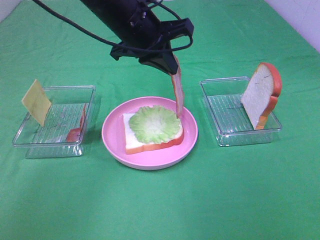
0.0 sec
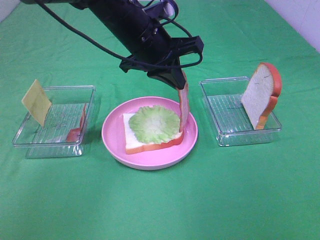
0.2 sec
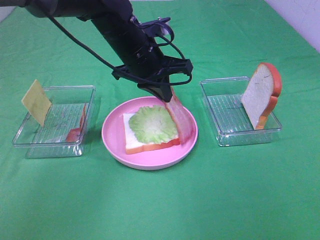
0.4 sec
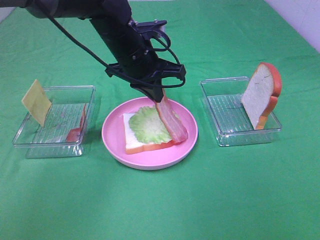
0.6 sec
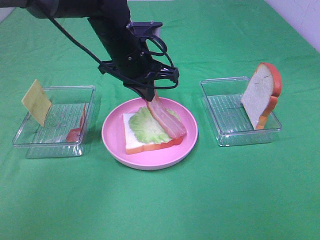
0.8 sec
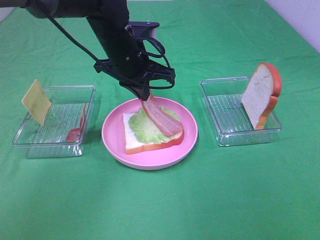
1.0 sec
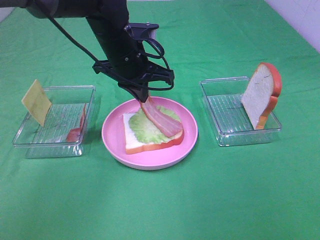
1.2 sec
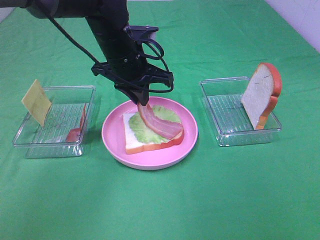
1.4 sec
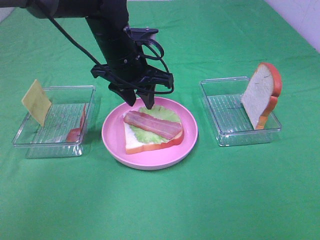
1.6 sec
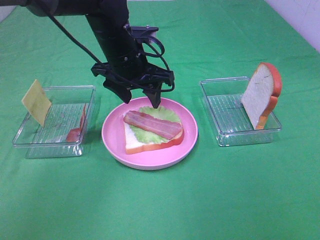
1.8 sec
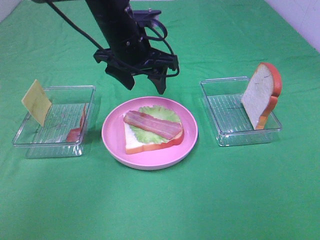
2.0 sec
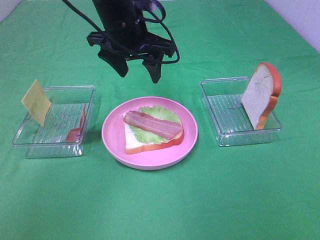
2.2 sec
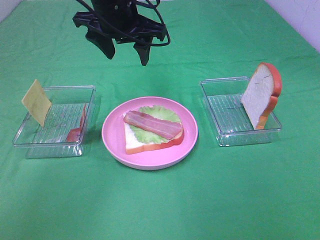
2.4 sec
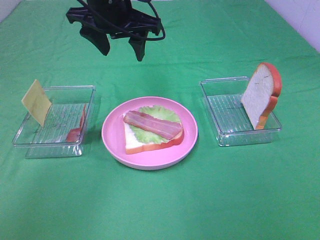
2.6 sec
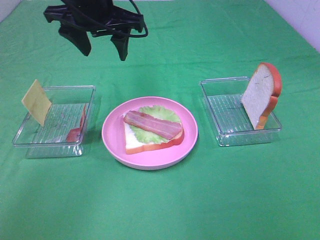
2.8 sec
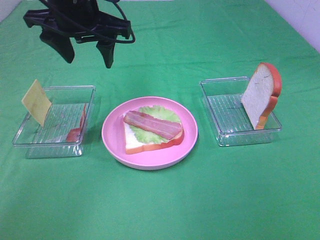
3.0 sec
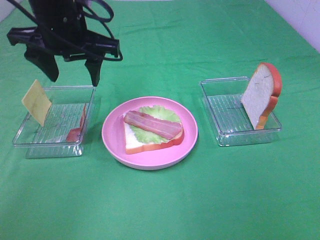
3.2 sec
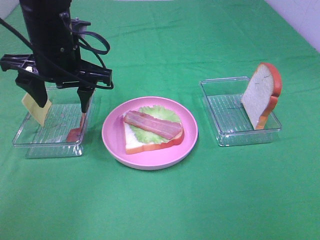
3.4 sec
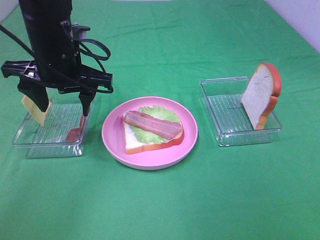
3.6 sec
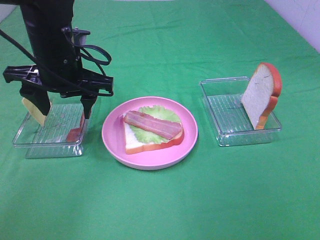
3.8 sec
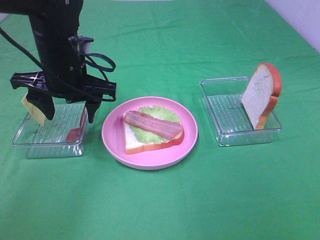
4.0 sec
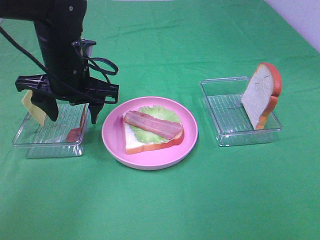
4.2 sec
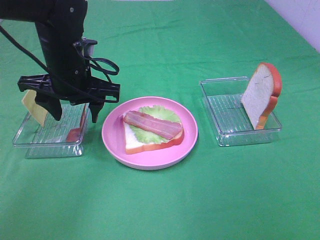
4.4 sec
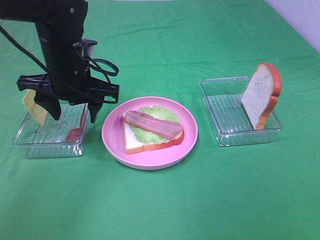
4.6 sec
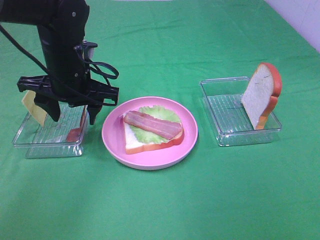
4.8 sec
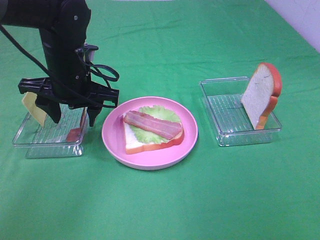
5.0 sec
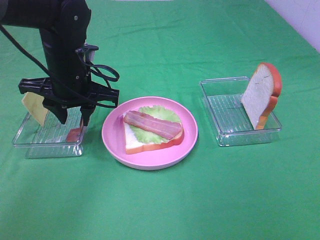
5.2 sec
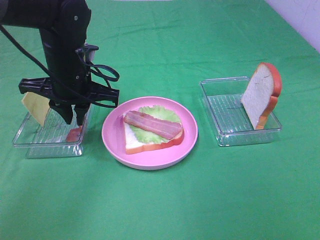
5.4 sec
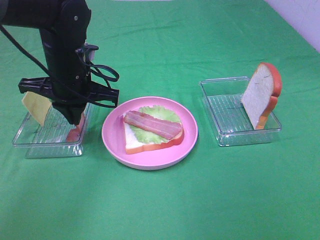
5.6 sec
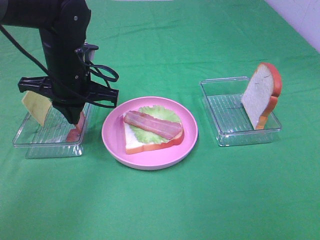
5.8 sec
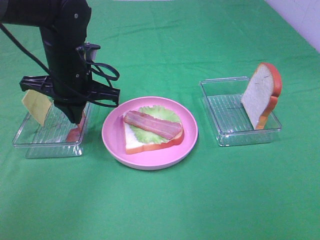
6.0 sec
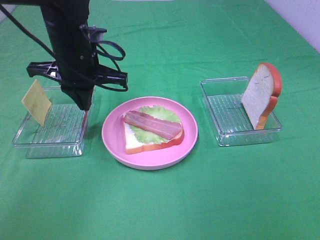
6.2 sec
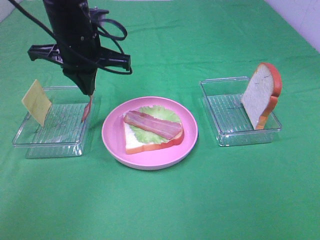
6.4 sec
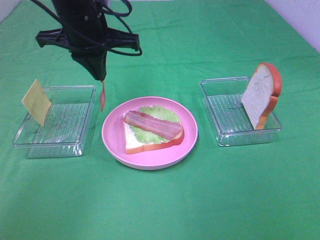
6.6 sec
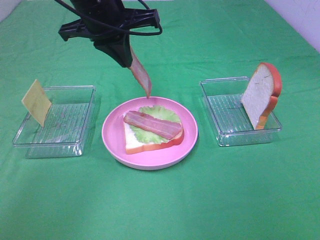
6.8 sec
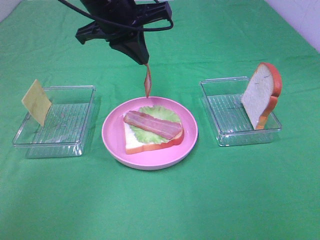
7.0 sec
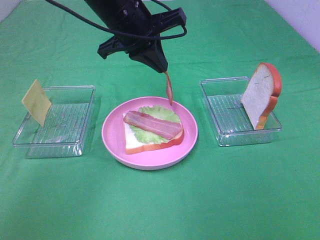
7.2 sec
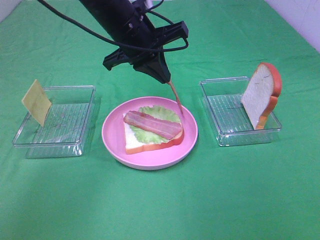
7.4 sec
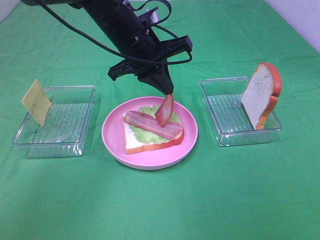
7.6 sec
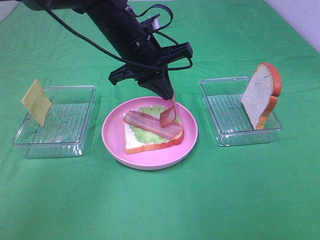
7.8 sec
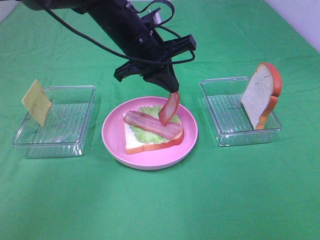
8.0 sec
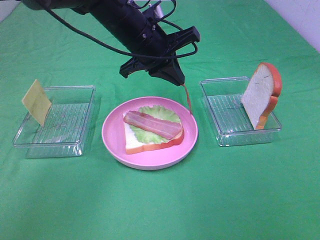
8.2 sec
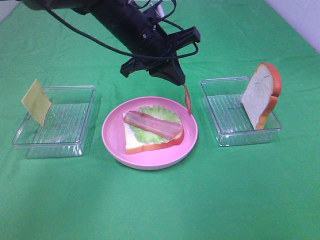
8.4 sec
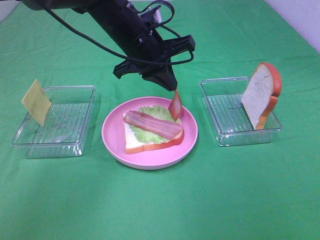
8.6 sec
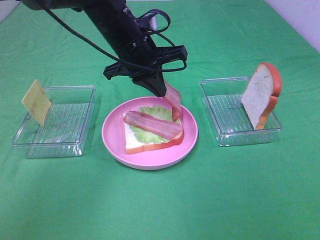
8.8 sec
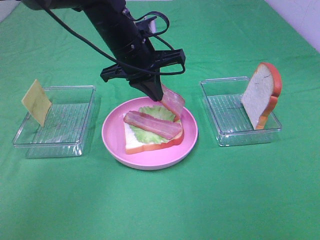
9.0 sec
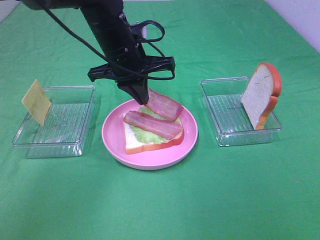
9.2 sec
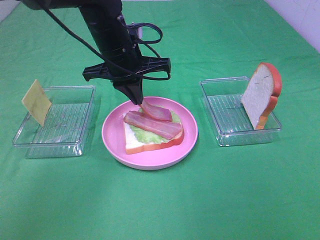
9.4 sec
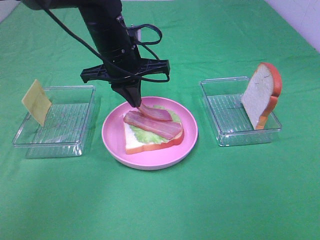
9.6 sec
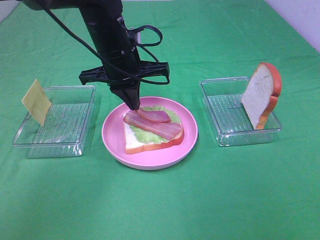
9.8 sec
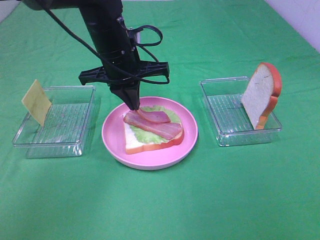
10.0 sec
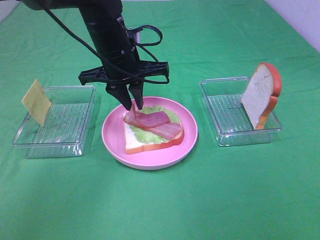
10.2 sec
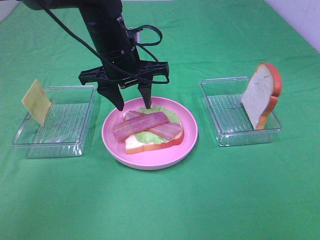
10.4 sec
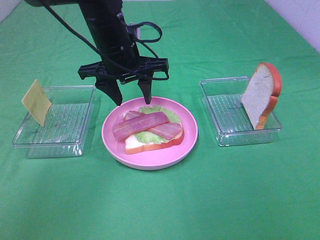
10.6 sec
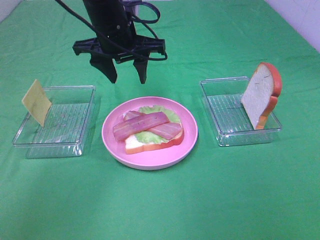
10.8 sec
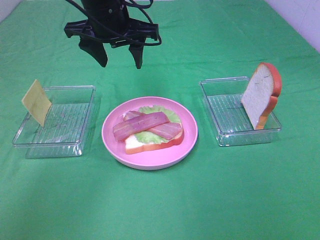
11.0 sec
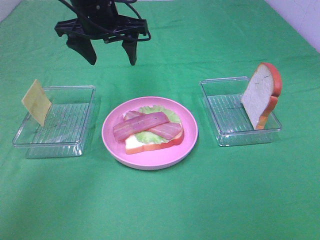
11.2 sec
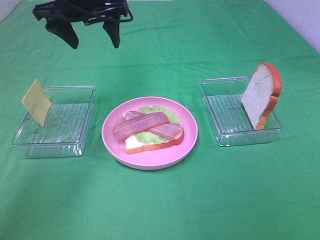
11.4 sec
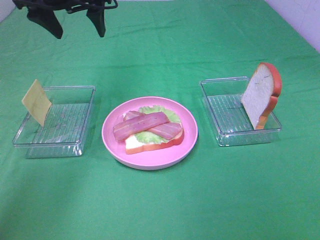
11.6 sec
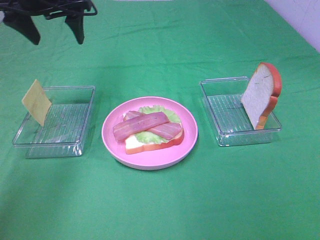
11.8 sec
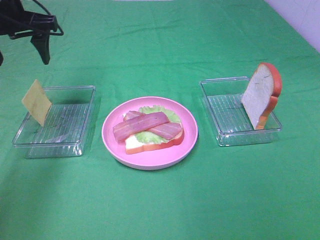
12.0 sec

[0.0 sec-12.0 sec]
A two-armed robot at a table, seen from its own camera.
Task of the whole recording: Make sandwiches.
Step, 2.0 sec to 5.8 sec: Left hand:grab the bacon.
Step, 6.0 sec to 10.4 sec: Left hand:place bacon on bacon.
0.0 sec to 1.6 sec: The left gripper heads downward, covering approximately 5 cm, and opens its fingers.
1.6 sec to 3.0 sec: The left gripper travels upward and to the left by roughly 10 cm.
3.0 sec to 4.4 sec: The left gripper is displaced downward by about 10 cm.
4.4 sec to 6.0 sec: The left gripper closes its fingers.
6.0 sec to 7.6 sec: The left gripper heads to the right, covering about 10 cm, and travels upward and back again, roughly 10 cm each way.
7.6 sec to 9.0 sec: The grippers stay close to where they were, moving slightly.
9.0 sec to 10.4 sec: The left gripper opens its fingers.
10.4 sec to 12.0 sec: The left gripper goes some 20 cm to the left and upward.

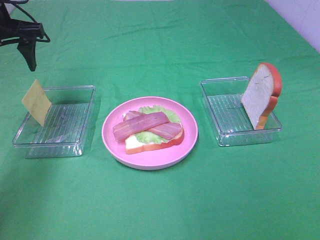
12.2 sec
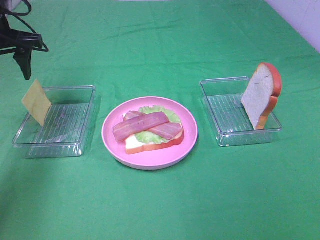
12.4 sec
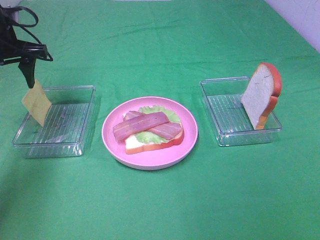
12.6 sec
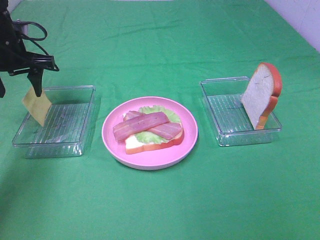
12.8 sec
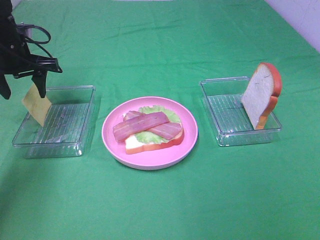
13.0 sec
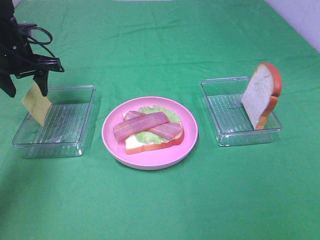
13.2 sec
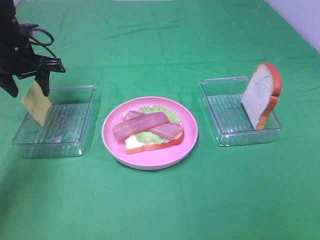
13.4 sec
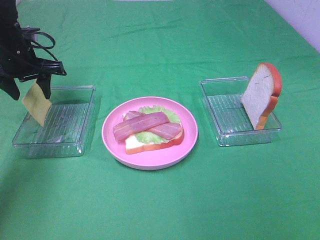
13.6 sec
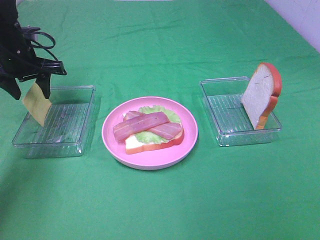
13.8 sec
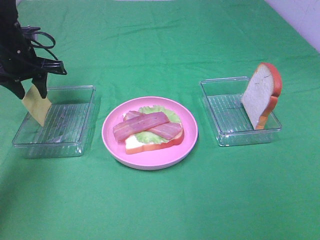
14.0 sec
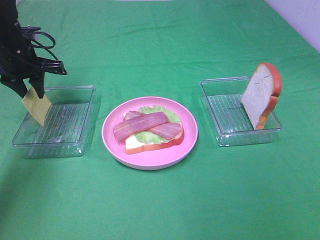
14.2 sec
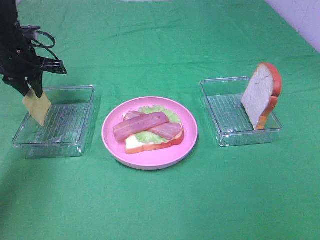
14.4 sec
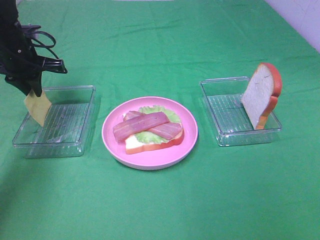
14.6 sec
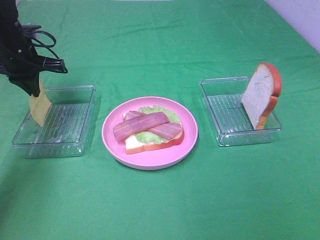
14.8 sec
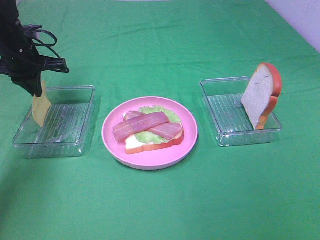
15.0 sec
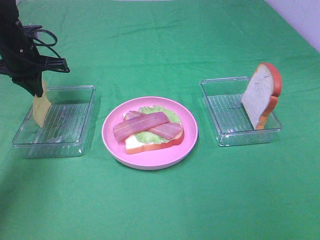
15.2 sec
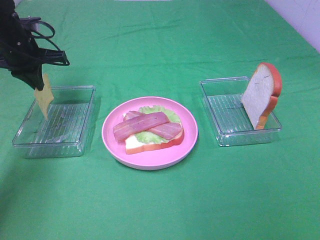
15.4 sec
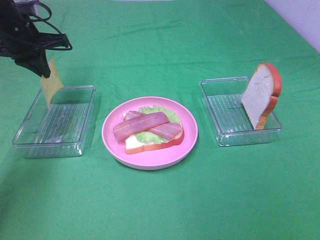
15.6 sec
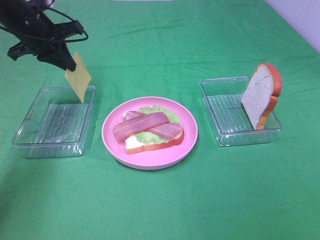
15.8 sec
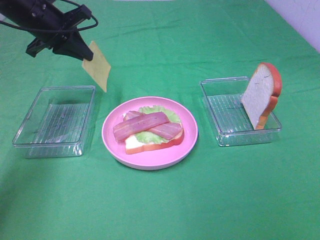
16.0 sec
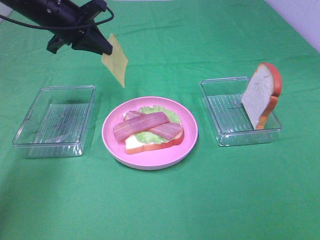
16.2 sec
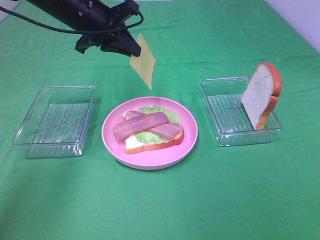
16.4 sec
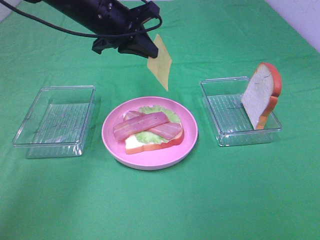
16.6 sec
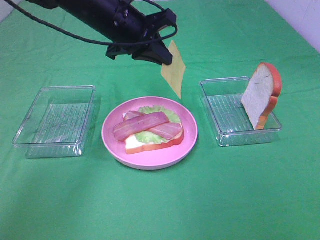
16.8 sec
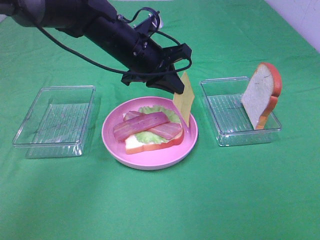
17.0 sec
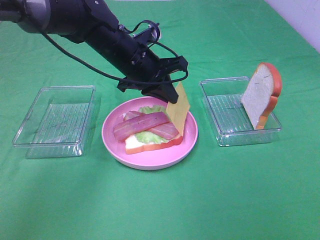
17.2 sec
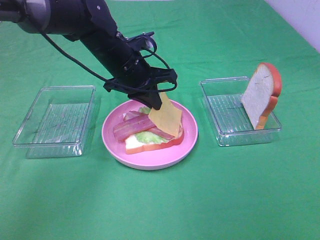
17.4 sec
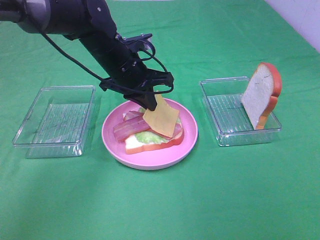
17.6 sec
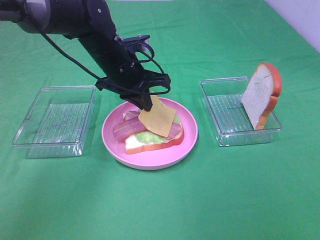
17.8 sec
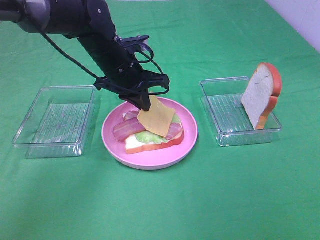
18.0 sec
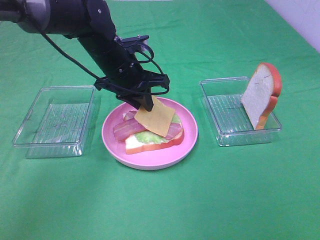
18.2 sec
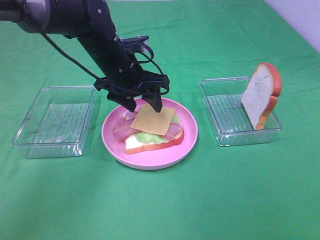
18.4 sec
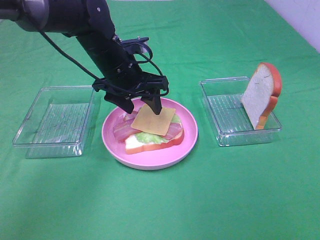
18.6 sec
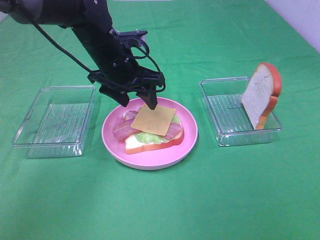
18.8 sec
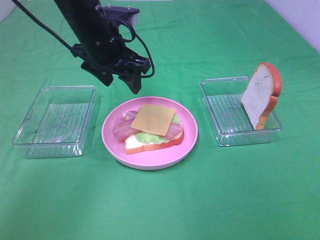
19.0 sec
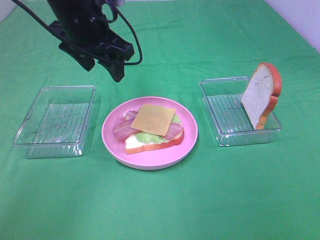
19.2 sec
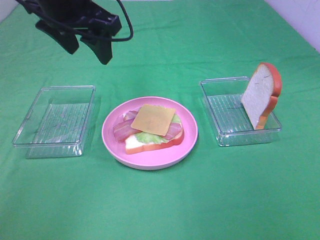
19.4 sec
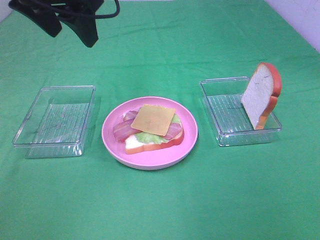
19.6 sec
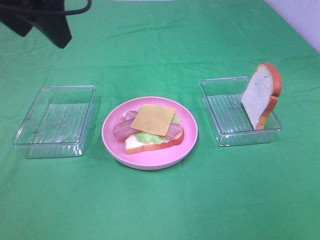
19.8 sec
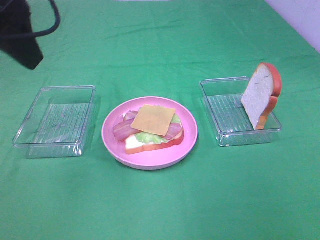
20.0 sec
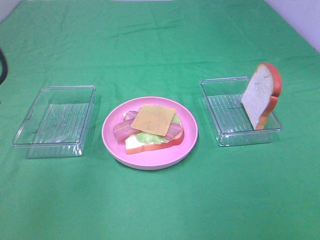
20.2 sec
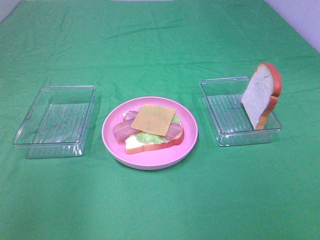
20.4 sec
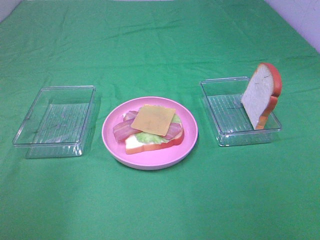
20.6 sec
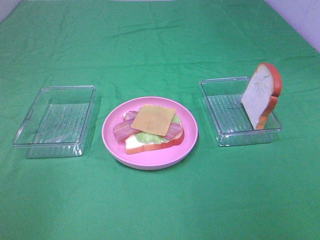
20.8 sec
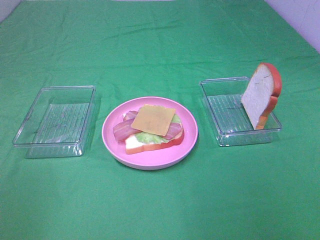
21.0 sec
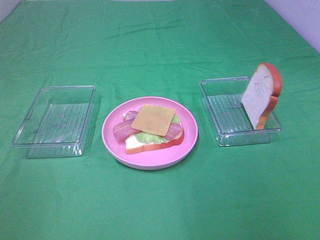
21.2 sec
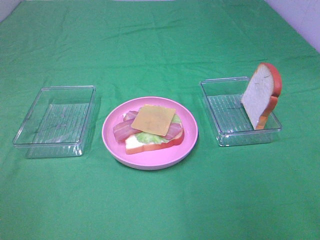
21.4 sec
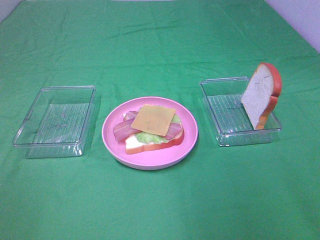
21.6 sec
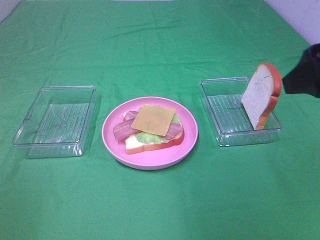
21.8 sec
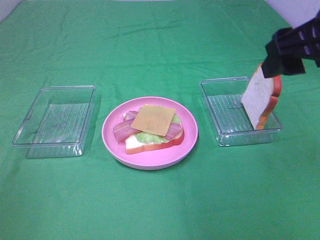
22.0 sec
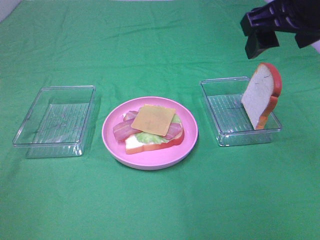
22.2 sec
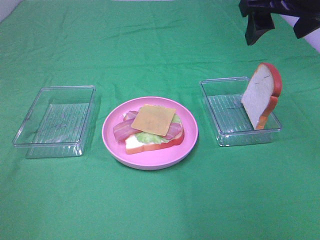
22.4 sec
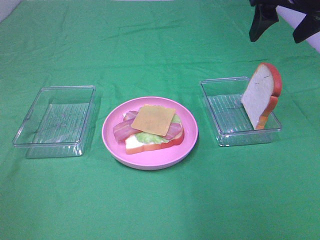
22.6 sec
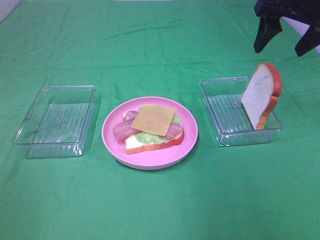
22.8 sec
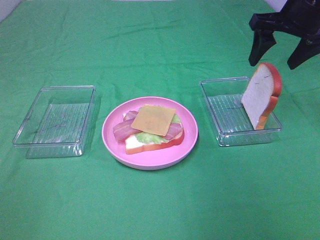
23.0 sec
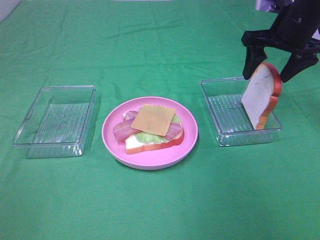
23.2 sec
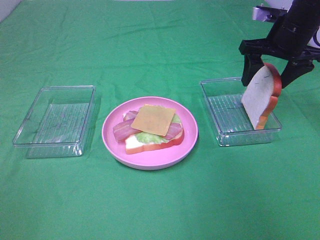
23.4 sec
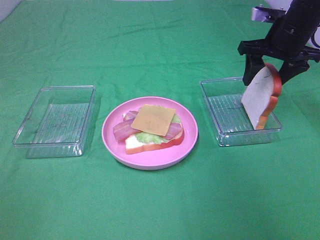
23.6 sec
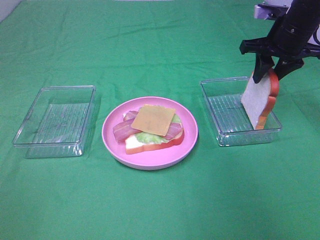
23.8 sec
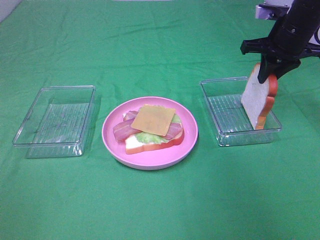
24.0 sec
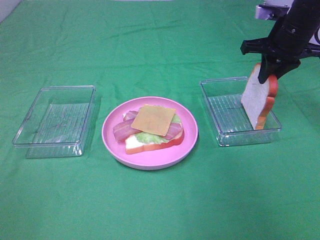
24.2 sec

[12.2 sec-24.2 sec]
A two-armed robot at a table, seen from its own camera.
Task of the whole recording: Make sandwiches.
Step, 12.2 sec to 15.0 sec: Left hand:grab the cheese slice.
Step, 15.2 sec to 18.4 sec: Left hand:place the cheese slice on top of the bacon.
Step, 18.6 sec to 24.2 sec: Right hand:grab the bread slice.
12.2 sec to 13.8 sec: The left gripper shifts about 10 cm downward.
13.8 sec to 15.2 sec: The left gripper closes its fingers.
15.2 sec to 16.6 sec: The left gripper shifts some 20 cm to the right and upward.
16.6 sec to 18.2 sec: The left gripper travels downward by approximately 10 cm.
18.2 sec to 19.8 sec: The left gripper moves upward, backward and to the left, some 25 cm, and opens.
19.8 sec to 21.2 sec: The left gripper moves backward and to the left, about 30 cm.
21.2 sec to 22.6 sec: The right gripper is displaced forward by some 35 cm.
22.6 sec to 24.2 sec: The right gripper shifts about 15 cm downward and forward, and closes up.
